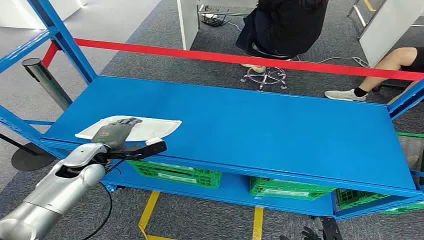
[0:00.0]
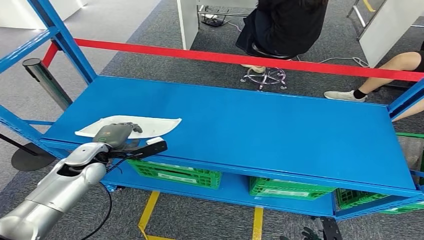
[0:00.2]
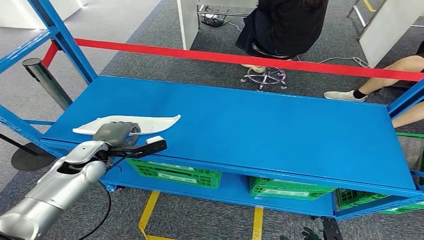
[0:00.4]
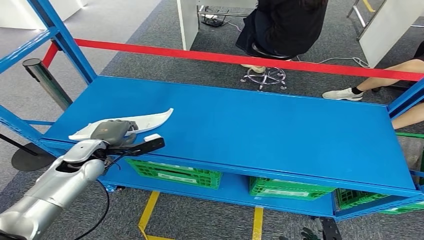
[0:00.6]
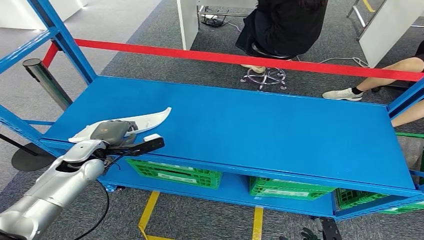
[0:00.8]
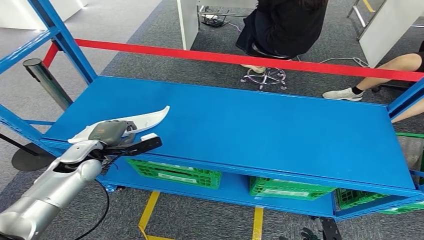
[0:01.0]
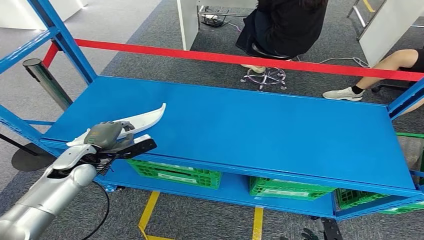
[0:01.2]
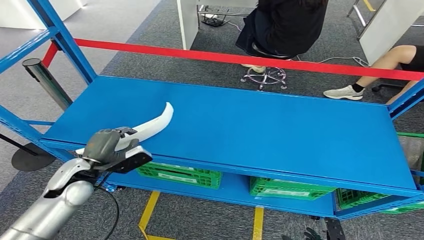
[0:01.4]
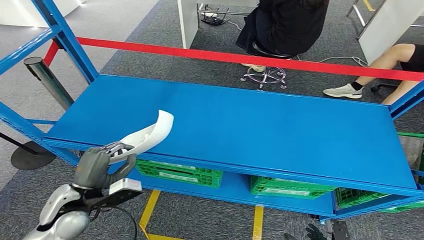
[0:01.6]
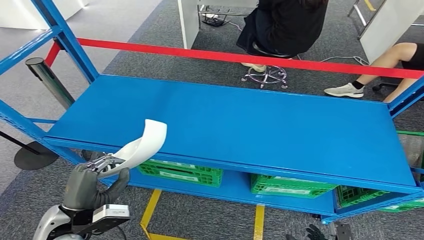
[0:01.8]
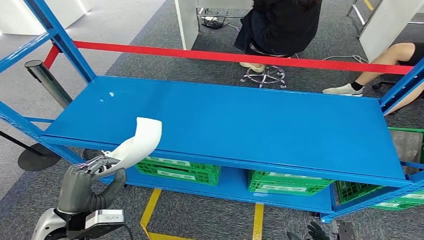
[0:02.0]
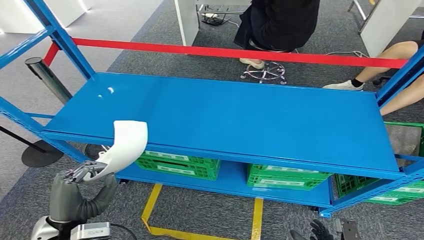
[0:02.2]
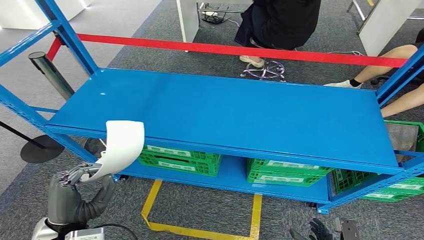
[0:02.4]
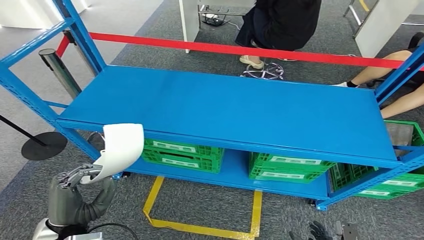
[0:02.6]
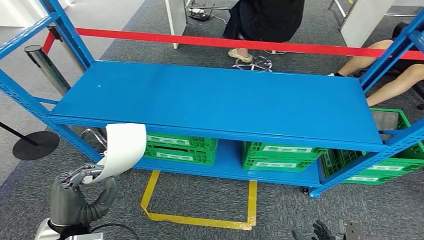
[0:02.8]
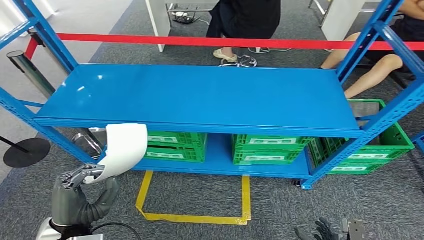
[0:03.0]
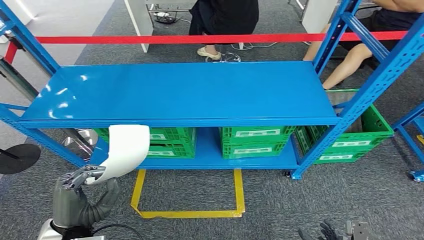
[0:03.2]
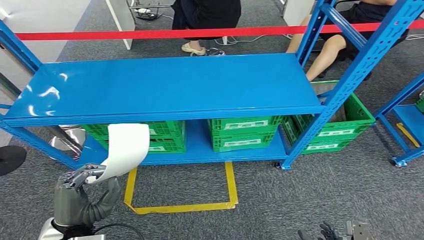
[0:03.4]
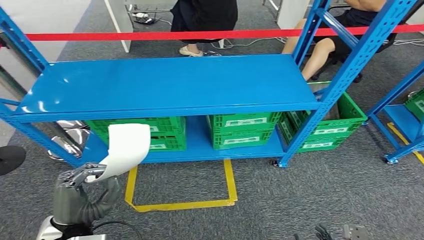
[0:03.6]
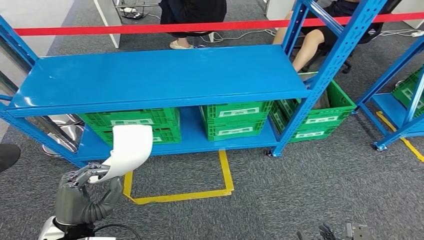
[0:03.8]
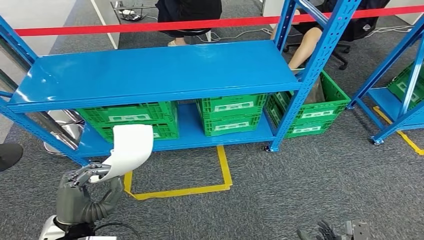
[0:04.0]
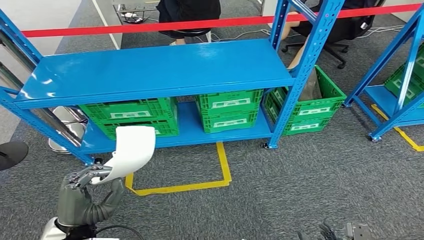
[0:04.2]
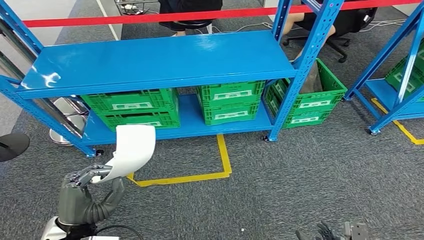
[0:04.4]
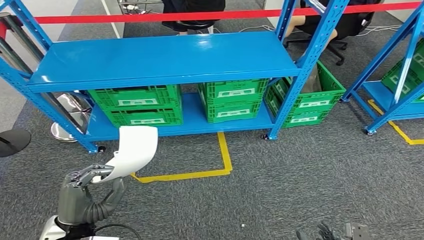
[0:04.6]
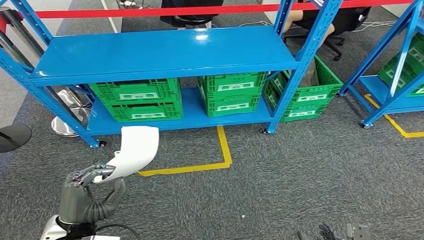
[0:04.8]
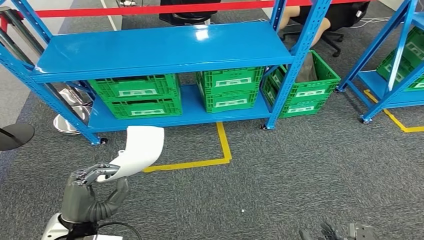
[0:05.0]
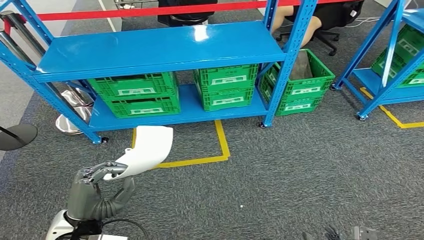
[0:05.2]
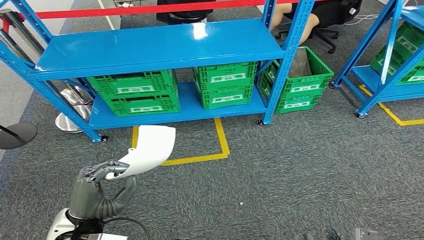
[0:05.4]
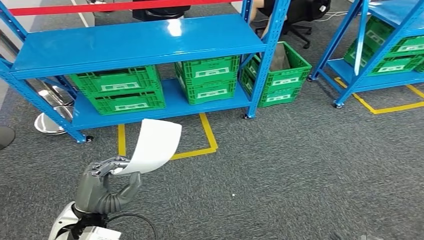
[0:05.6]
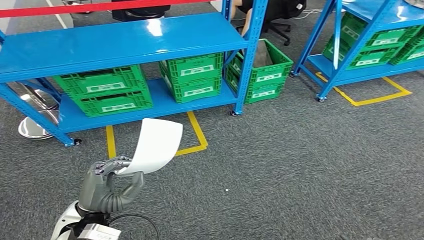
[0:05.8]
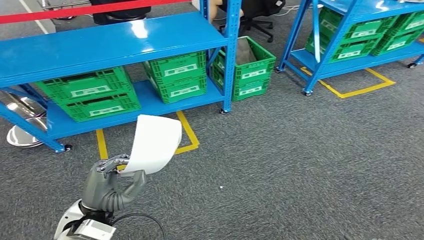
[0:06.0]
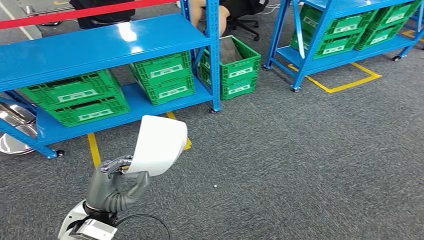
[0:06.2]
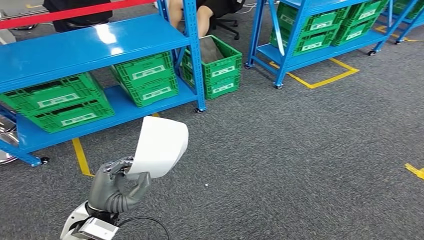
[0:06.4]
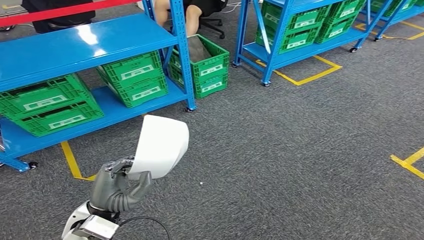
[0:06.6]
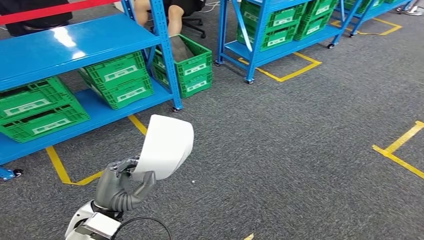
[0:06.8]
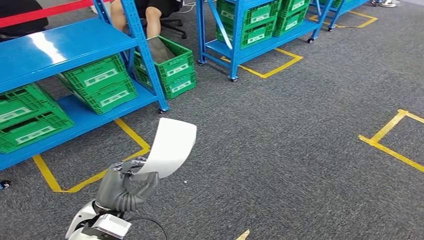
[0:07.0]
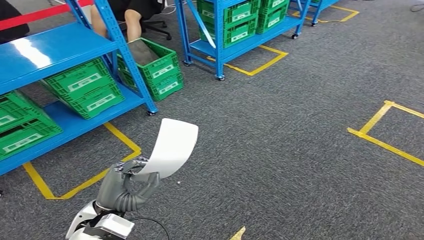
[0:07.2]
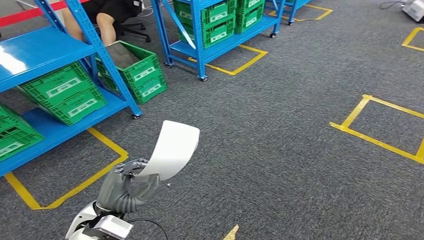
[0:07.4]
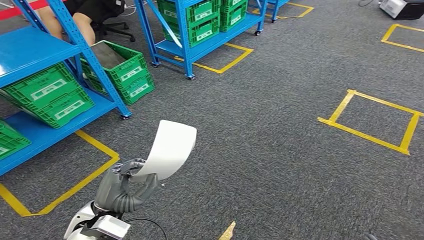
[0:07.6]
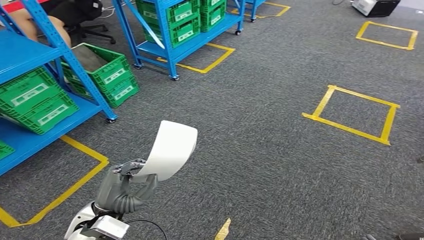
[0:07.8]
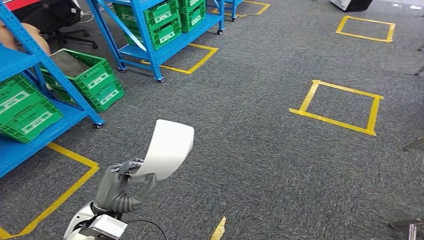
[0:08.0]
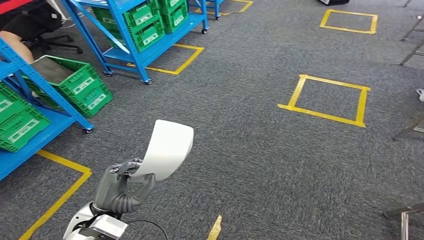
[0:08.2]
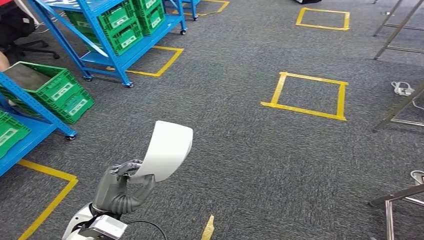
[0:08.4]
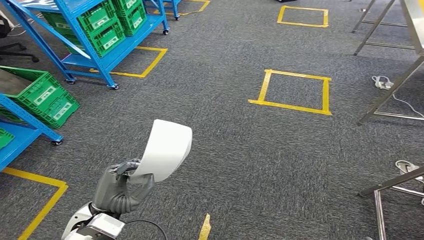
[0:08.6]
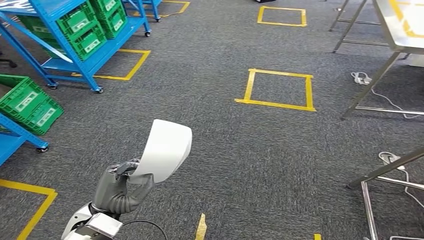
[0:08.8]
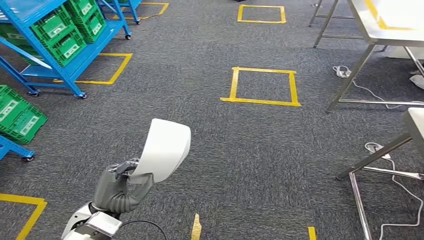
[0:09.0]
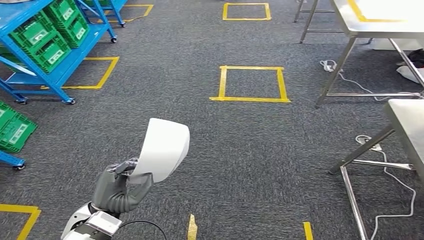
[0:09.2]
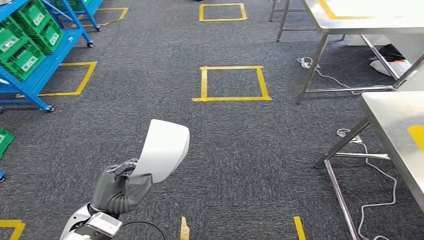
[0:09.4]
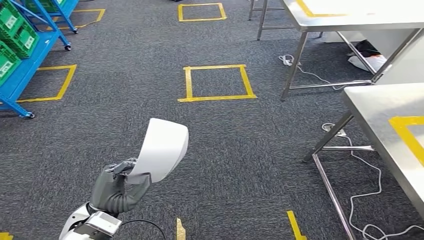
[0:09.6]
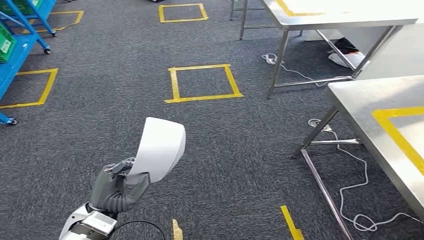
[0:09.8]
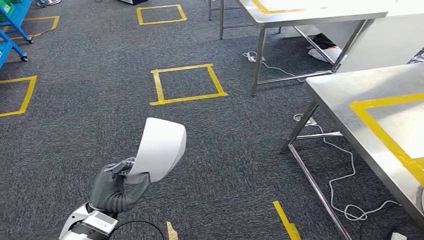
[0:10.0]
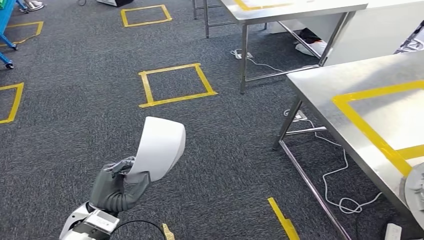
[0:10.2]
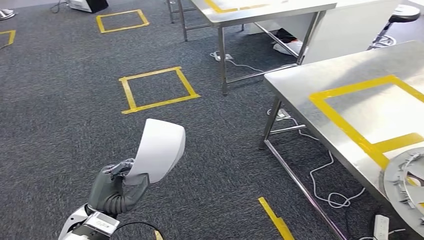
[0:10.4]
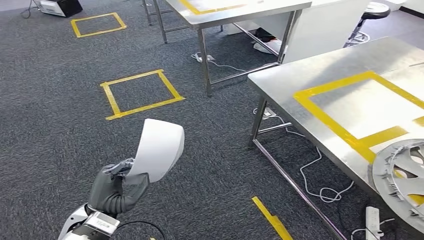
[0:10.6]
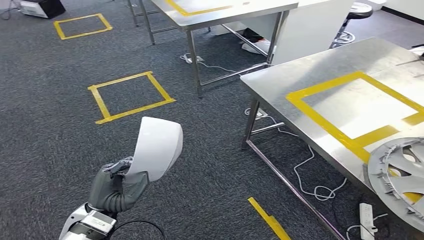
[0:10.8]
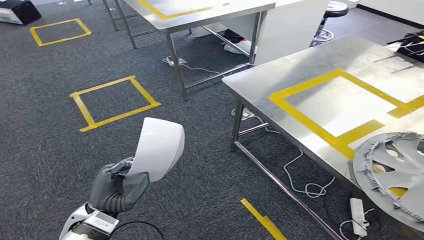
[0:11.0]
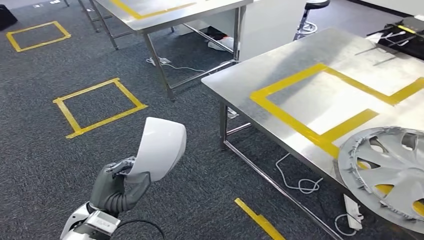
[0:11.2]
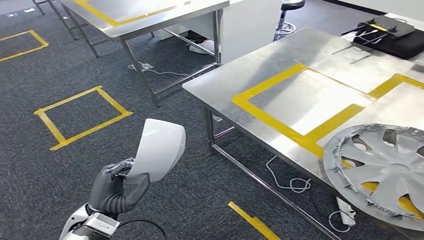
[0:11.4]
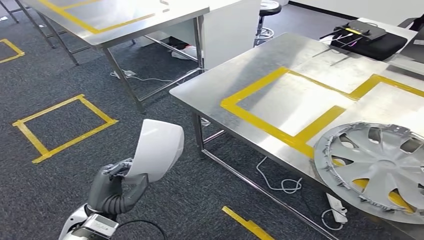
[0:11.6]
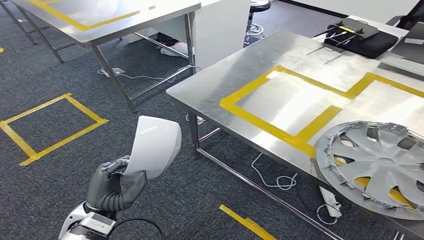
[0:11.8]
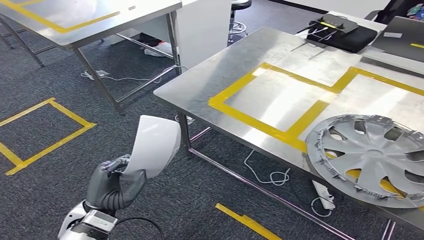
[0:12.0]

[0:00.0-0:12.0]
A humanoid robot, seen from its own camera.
Step, 0:00.0 to 0:02.0: Pick up the small component from the shelf.

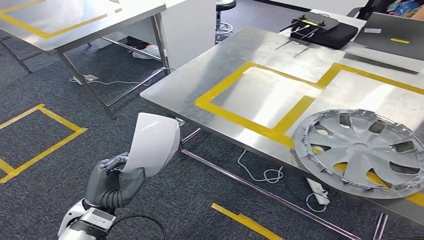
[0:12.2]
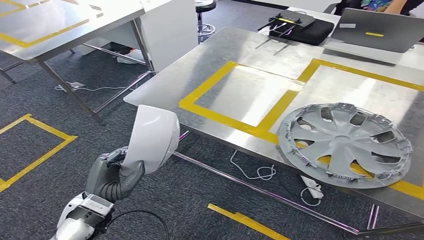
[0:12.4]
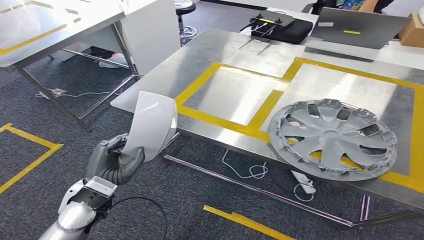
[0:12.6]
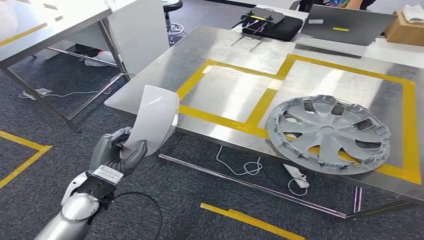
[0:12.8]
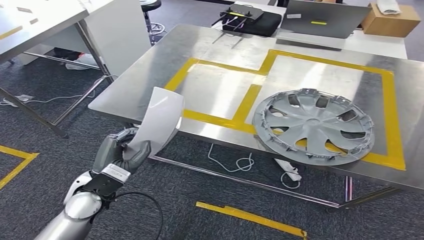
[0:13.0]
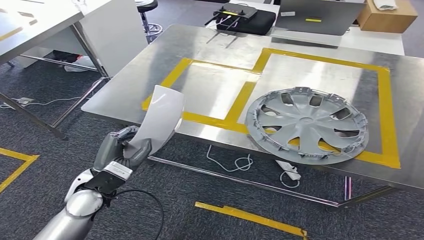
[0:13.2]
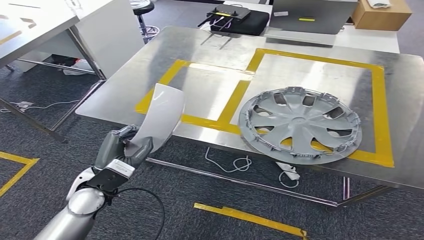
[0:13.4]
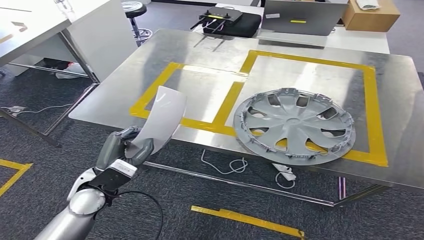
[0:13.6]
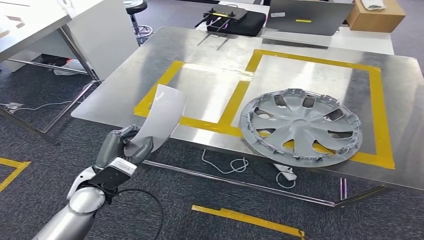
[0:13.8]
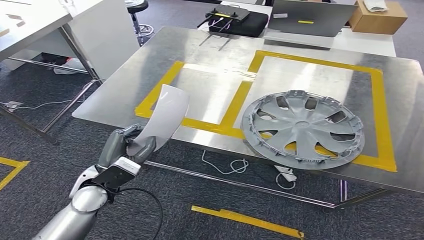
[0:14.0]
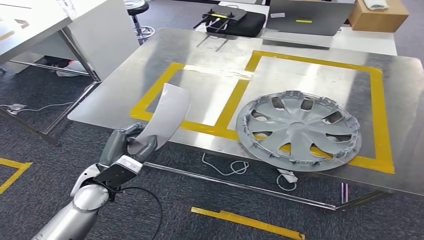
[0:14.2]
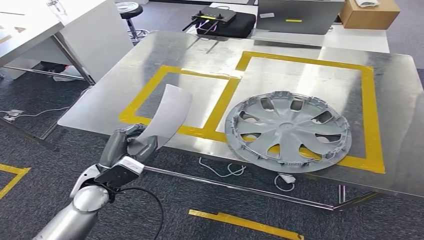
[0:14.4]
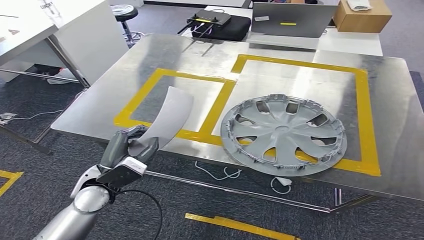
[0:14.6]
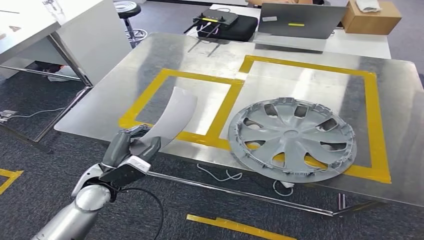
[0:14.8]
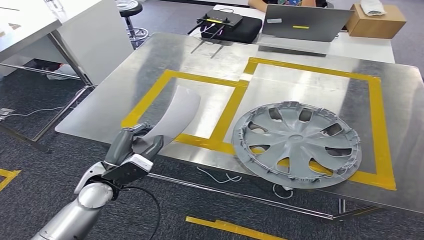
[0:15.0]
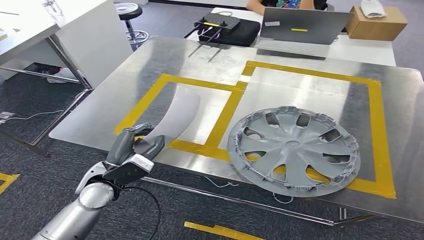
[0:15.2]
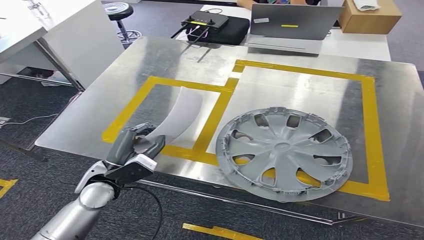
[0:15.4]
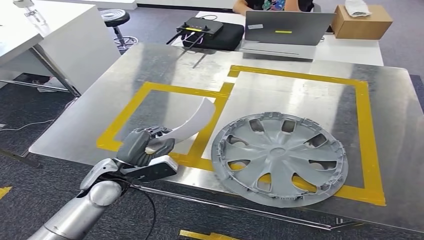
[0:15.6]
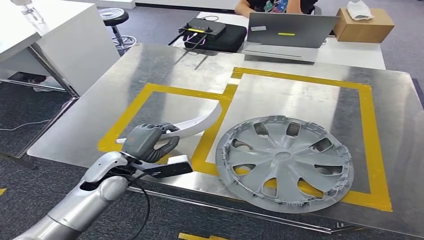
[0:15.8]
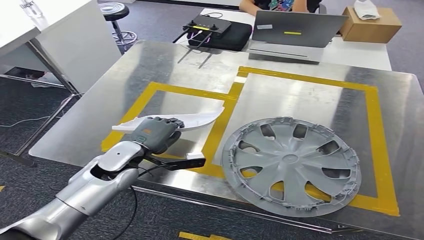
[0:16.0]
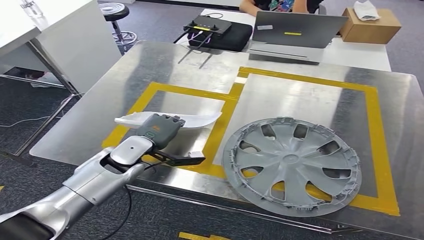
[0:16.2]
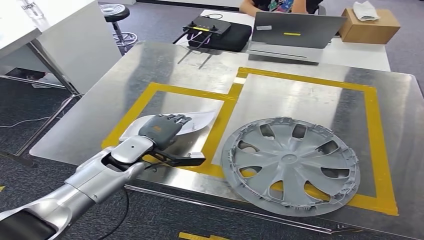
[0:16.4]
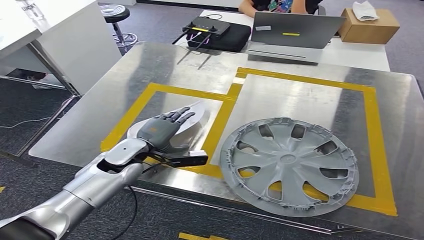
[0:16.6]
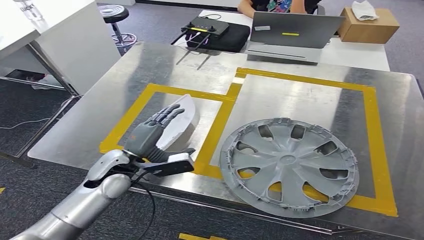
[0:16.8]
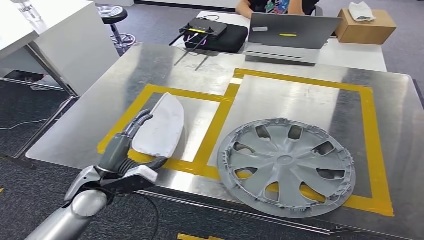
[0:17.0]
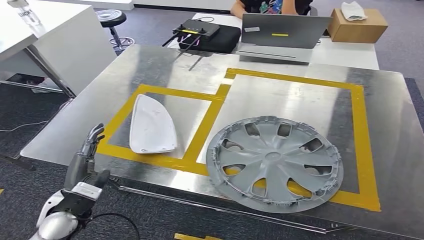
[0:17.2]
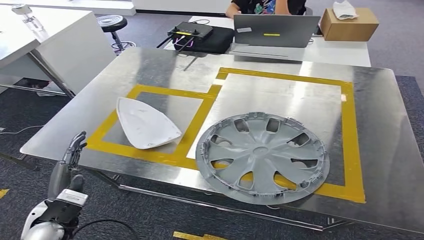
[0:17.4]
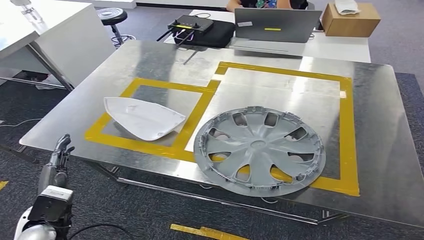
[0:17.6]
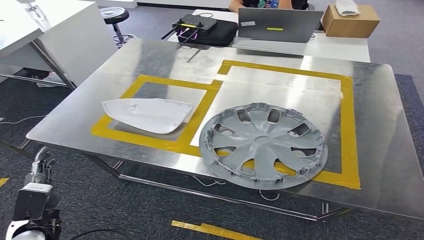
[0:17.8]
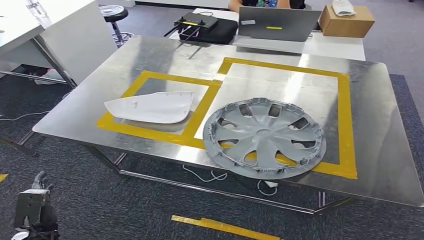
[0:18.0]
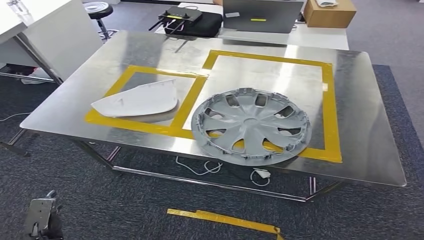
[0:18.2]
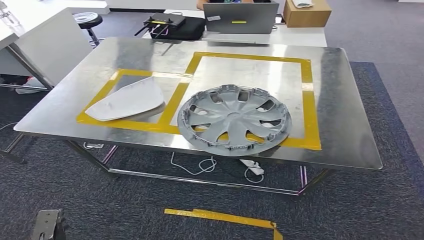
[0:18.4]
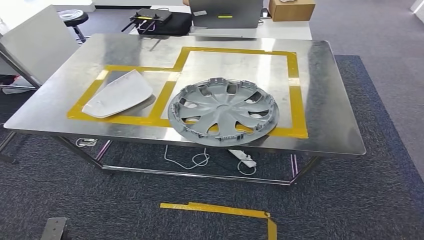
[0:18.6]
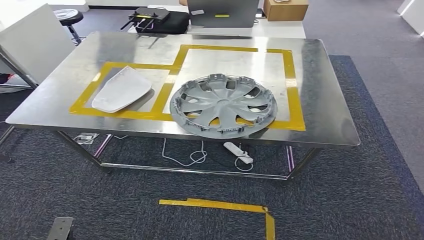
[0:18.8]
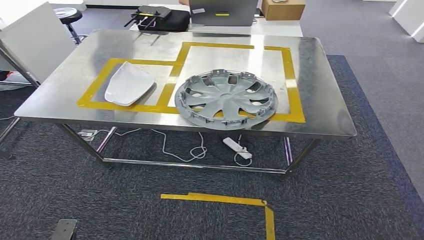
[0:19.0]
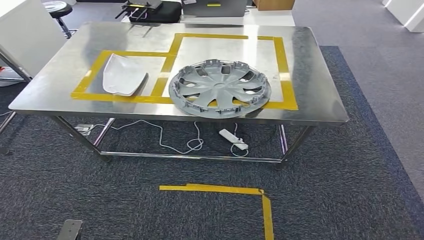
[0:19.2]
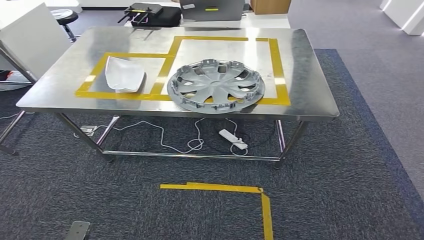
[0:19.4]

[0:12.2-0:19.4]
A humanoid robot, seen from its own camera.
Step, 0:14.2 to 0:18.8: Insert the small component into the corresponding slot on the workbench.
